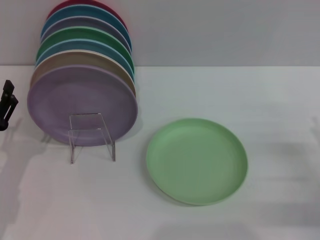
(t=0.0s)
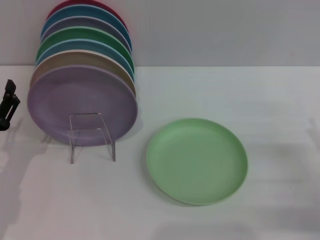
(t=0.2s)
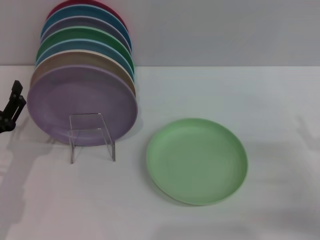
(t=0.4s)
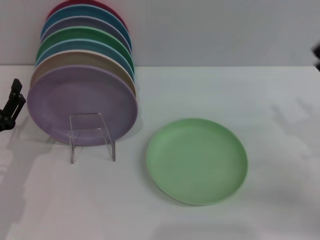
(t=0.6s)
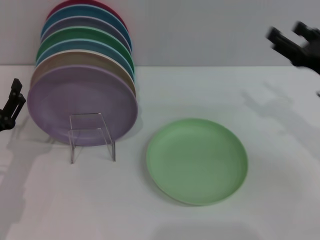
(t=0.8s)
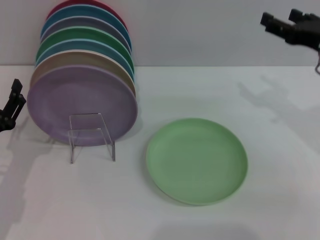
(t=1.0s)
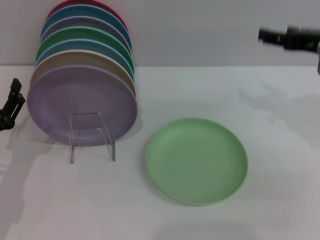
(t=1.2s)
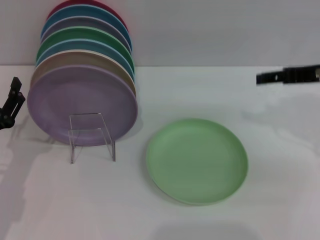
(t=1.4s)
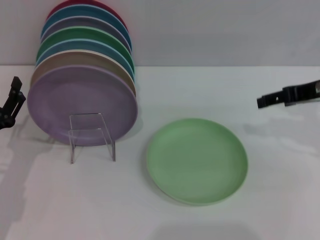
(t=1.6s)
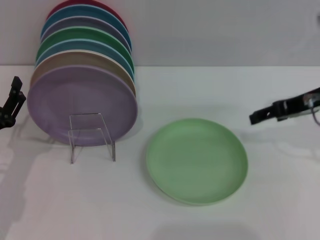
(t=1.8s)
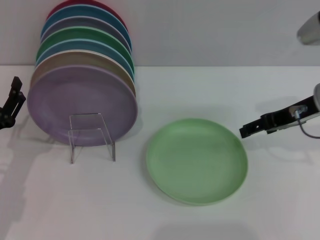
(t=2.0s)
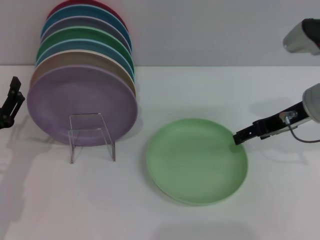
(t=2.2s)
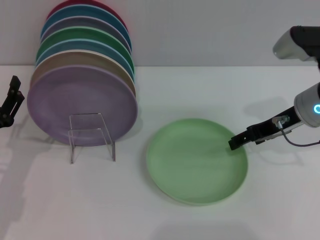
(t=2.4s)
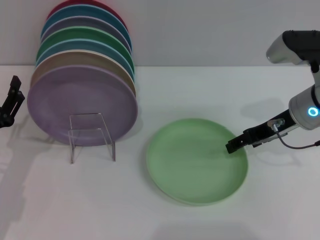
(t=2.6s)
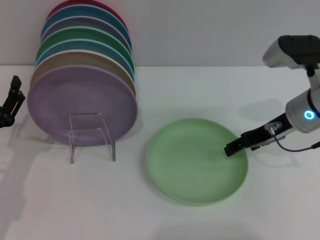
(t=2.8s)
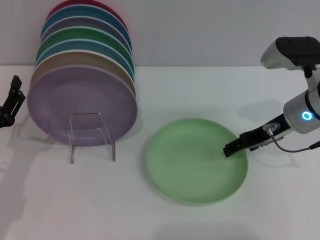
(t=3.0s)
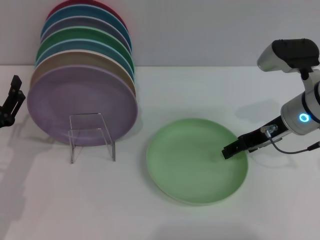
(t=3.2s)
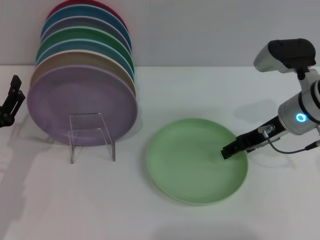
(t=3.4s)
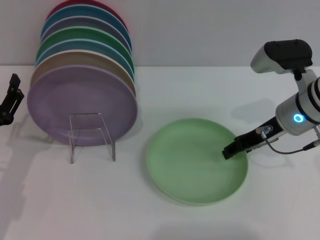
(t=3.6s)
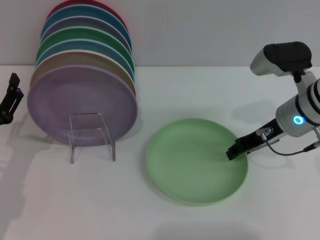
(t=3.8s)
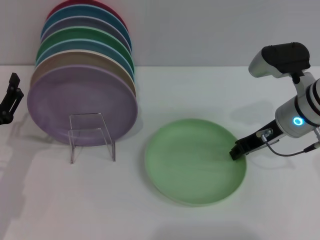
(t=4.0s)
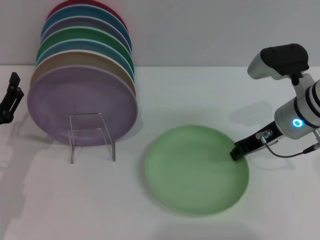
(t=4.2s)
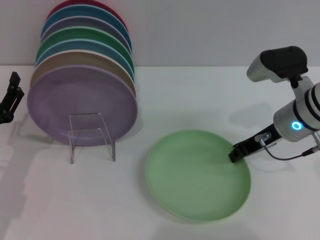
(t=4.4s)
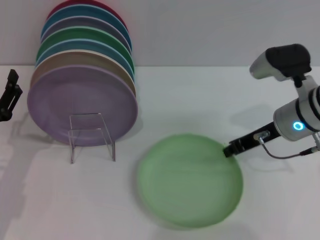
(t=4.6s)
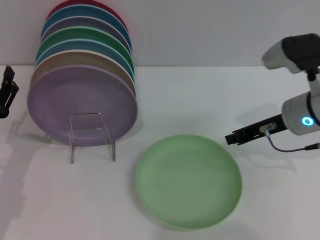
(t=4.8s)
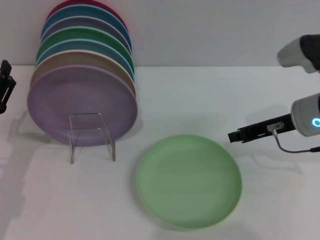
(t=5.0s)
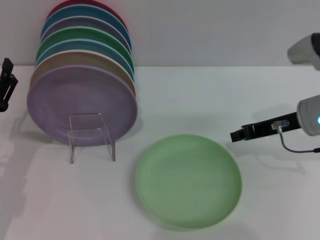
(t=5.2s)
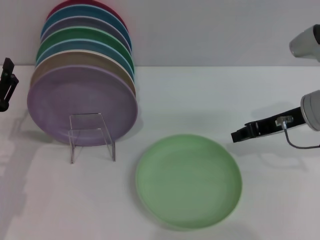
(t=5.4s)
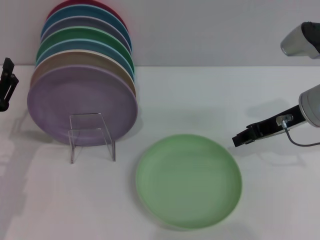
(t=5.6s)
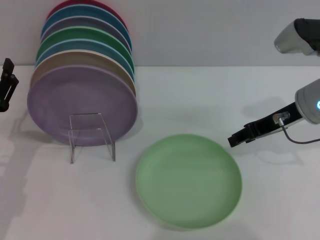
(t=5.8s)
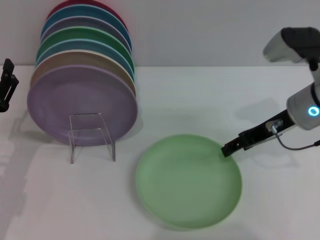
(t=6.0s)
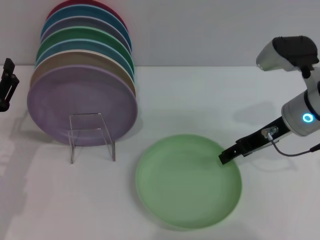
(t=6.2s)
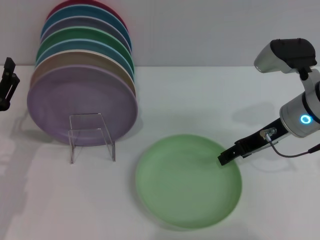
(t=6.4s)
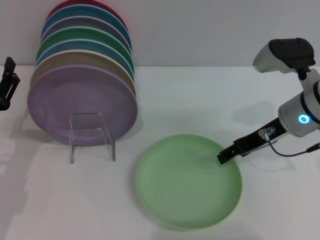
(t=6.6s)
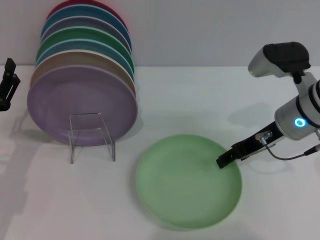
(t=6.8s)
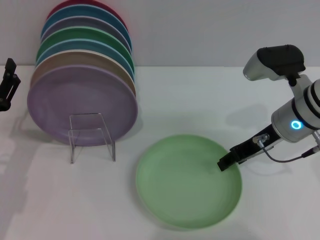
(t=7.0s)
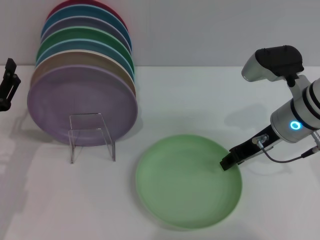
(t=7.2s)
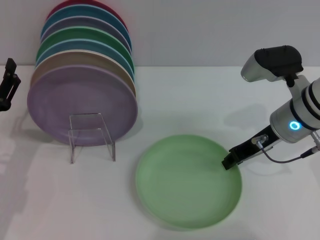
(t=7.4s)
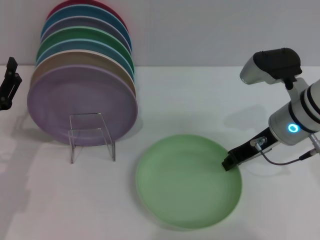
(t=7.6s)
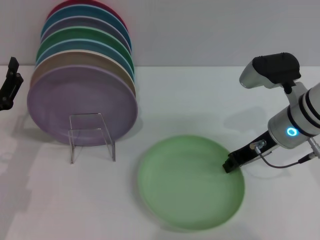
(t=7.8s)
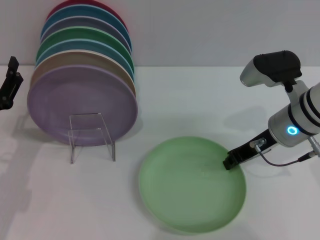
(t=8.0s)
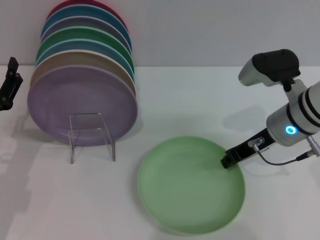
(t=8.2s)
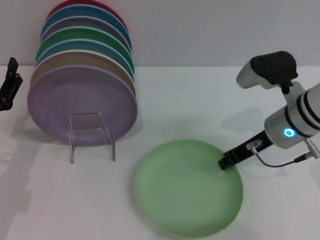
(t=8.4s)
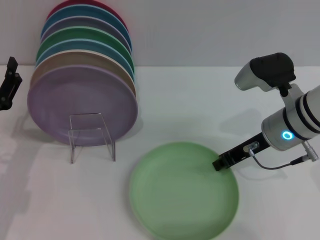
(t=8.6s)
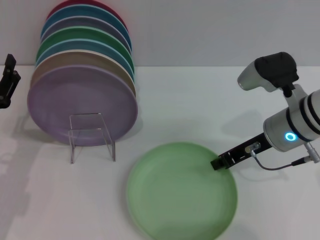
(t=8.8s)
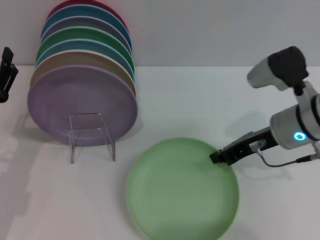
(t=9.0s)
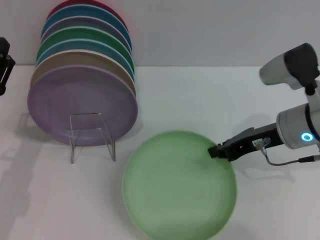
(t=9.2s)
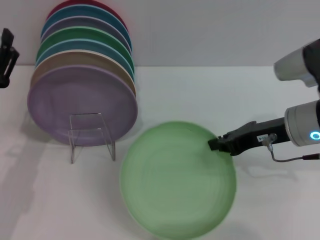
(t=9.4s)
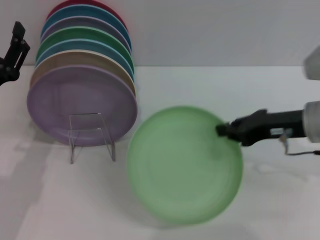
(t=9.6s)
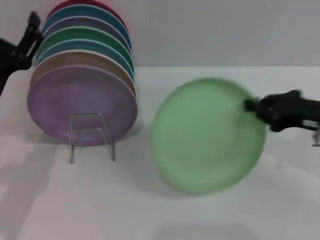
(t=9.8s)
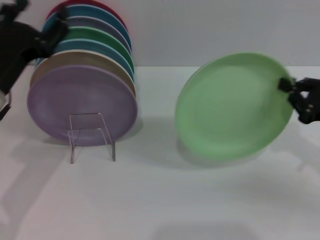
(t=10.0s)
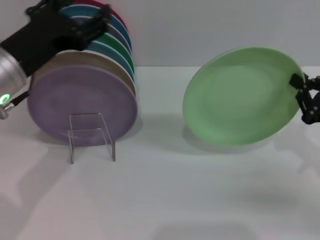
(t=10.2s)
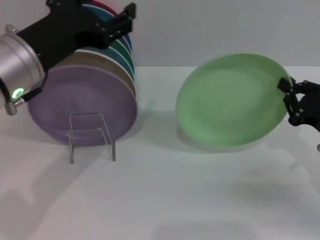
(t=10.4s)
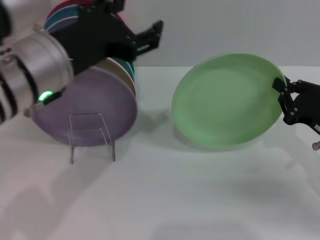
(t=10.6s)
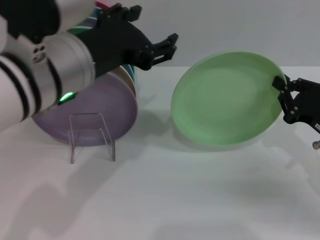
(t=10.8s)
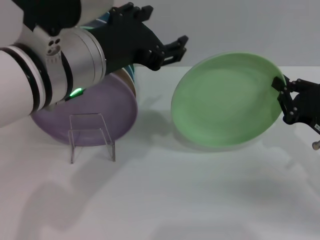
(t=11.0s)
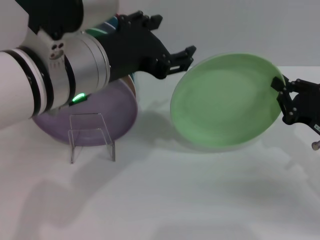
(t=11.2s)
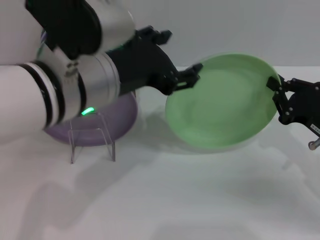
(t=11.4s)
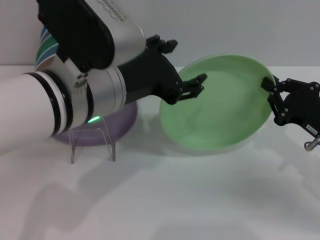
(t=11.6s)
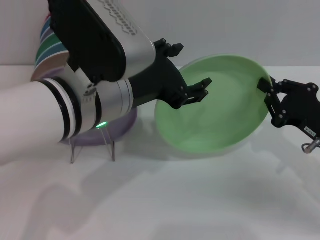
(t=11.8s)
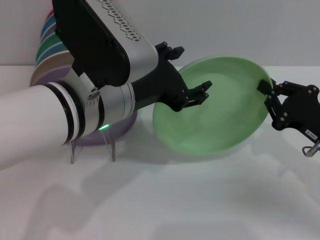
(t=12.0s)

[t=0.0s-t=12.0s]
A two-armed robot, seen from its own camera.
Task of the whole recording: Grip the plate with one hand, pass it to the other, then set it on the shelf.
Step, t=0.0s to t=10.0s: Pick up the plate with the right gripper.
t=0.0s to t=1.6s: The right gripper heads upward and forward, covering approximately 20 cm.
t=1.6s to t=3.0s: The right gripper heads downward and to the left, covering roughly 10 cm.
t=3.0s to t=4.4s: The right gripper closes its fingers.
t=4.4s to t=6.0s: The right gripper opens up.
t=6.0s to t=9.0s: The grippers make only small movements.
t=9.0s to t=10.4s: The left gripper travels upward and to the right by some 20 cm. The right gripper heads to the right, backward and downward, covering some 15 cm.
t=10.4s to t=12.0s: The left gripper moves to the right, approximately 10 cm.

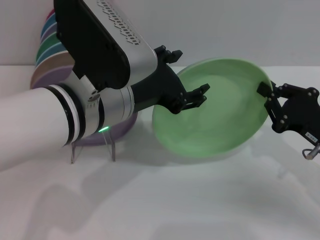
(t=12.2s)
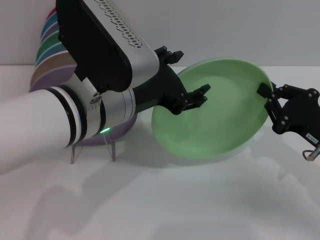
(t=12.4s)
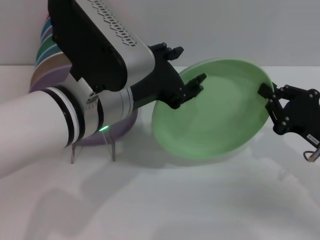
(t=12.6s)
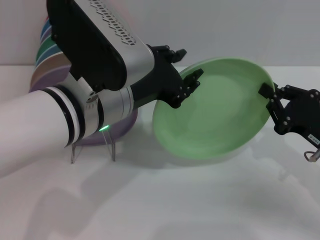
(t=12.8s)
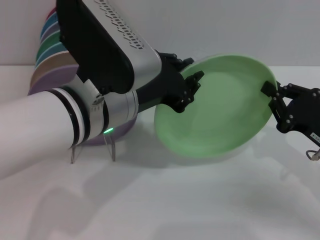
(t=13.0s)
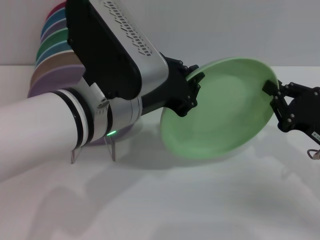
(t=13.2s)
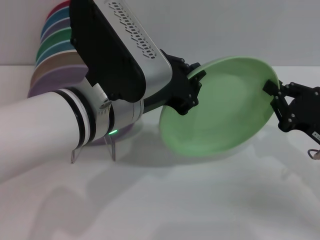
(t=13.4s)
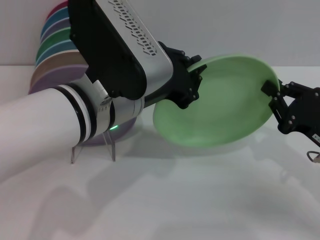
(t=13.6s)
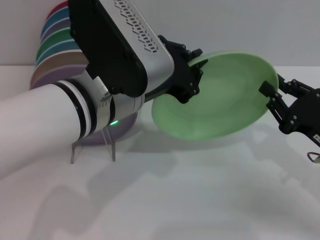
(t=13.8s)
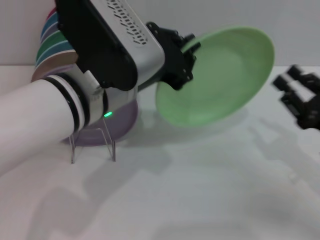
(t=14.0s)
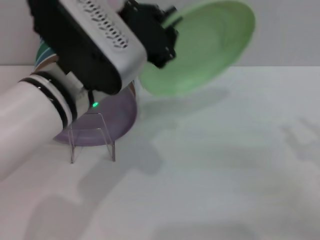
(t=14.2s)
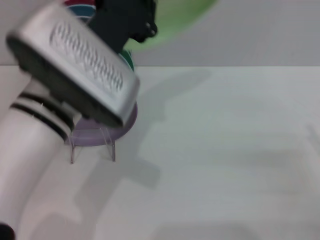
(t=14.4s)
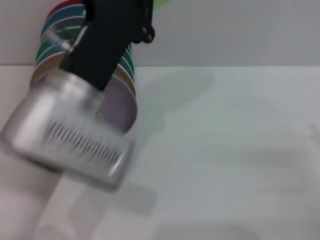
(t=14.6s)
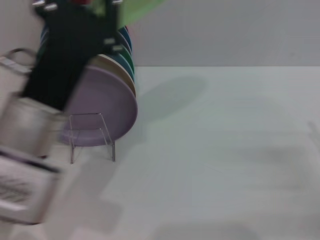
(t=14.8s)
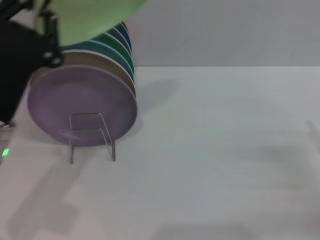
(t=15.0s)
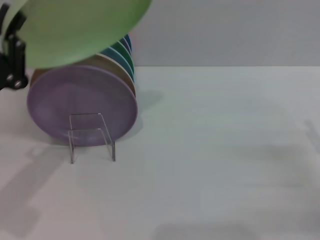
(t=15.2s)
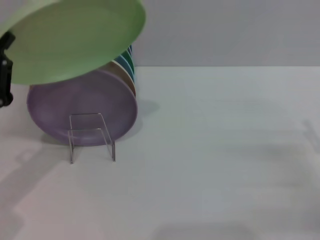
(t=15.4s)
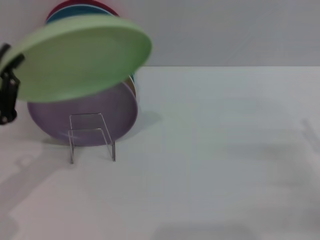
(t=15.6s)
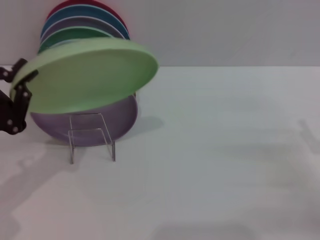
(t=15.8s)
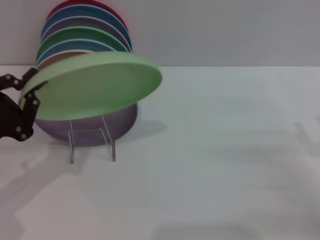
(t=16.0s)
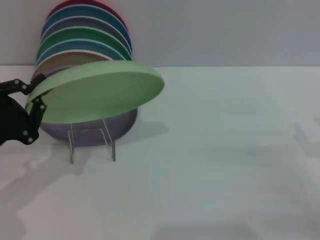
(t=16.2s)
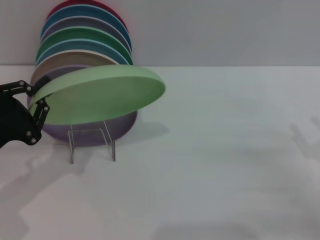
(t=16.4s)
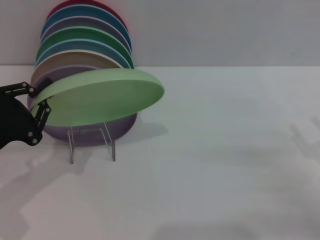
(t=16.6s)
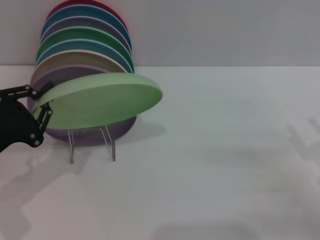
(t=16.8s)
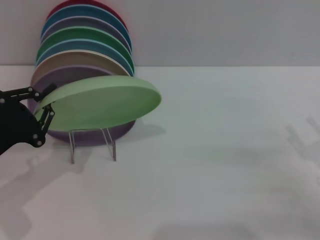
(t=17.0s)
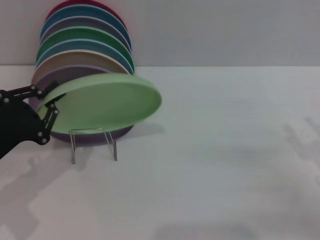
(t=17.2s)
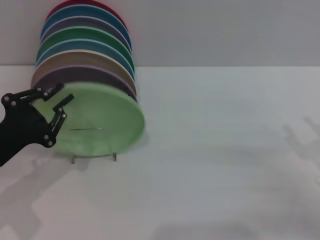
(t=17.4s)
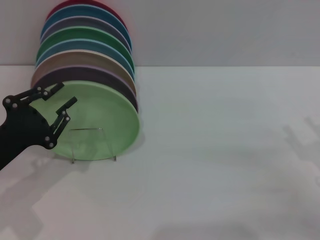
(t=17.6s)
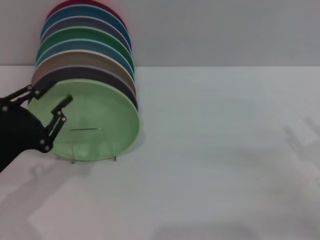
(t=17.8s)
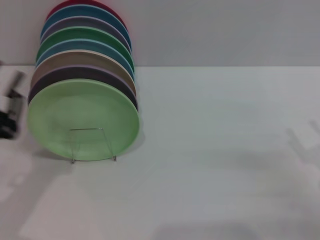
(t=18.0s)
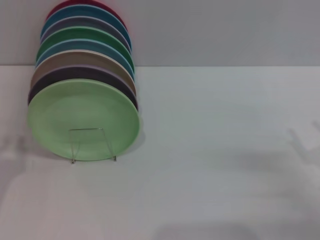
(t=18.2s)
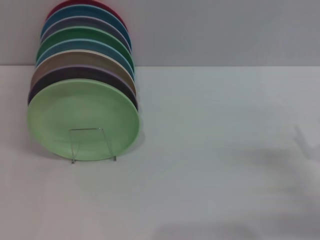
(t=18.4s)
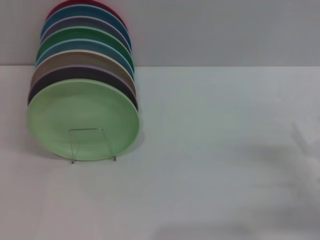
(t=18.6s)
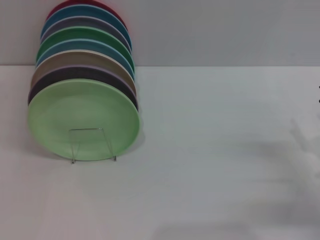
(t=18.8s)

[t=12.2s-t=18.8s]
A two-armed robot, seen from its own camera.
Task of the whole recording: Grip the plate with one hand, pass it to the other, then set it on the shelf.
Step, t=12.2s to t=14.4s: Pass the plate from the right gripper to the left gripper.
Step, t=14.6s to t=18.0s: Place the plate on the shelf with the left gripper.
t=12.2s to t=13.8s: The left gripper closes.
t=13.8s to t=15.4s: The left gripper goes about 25 cm to the left and downward; the right gripper goes roughly 5 cm to the right, and opens.
t=17.2s to t=18.8s: The left gripper travels backward and to the left by some 10 cm, and opens its fingers.
